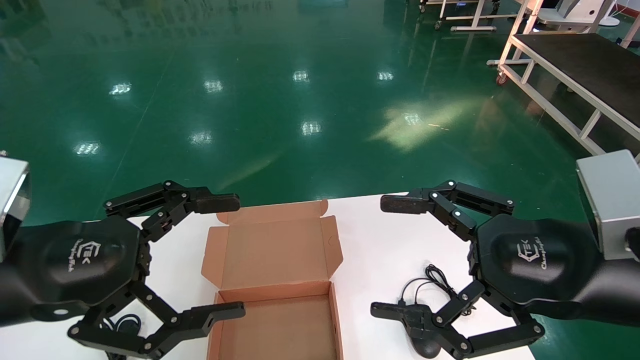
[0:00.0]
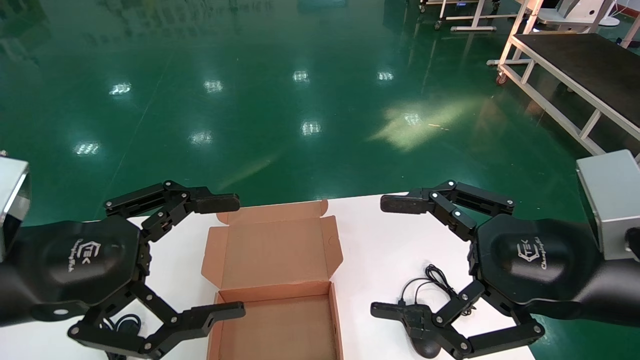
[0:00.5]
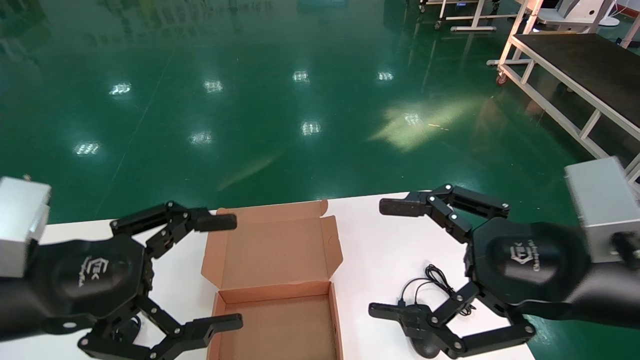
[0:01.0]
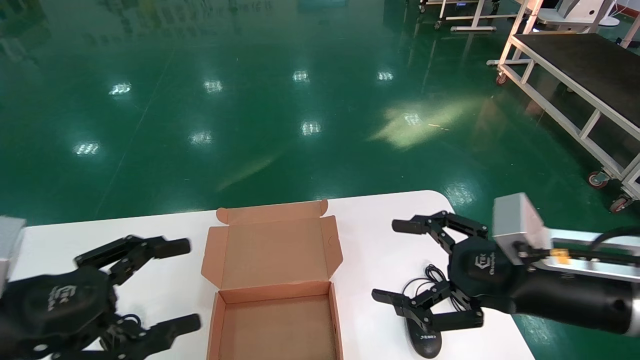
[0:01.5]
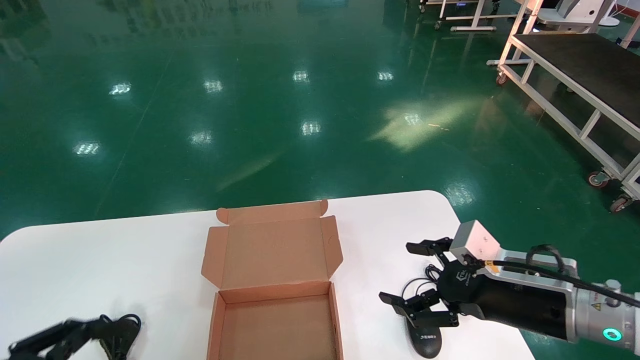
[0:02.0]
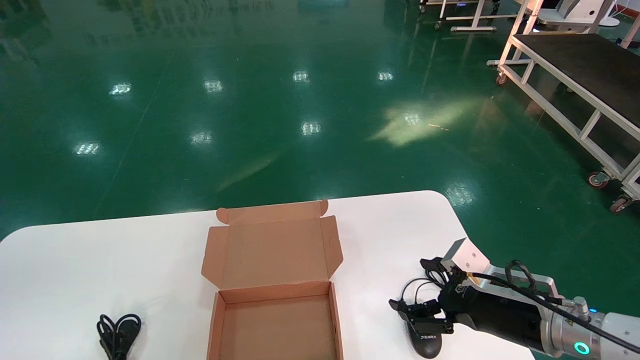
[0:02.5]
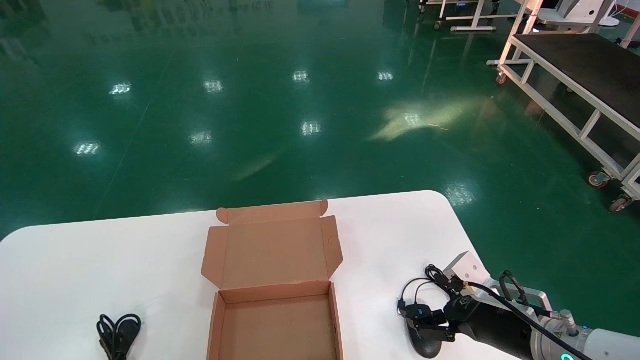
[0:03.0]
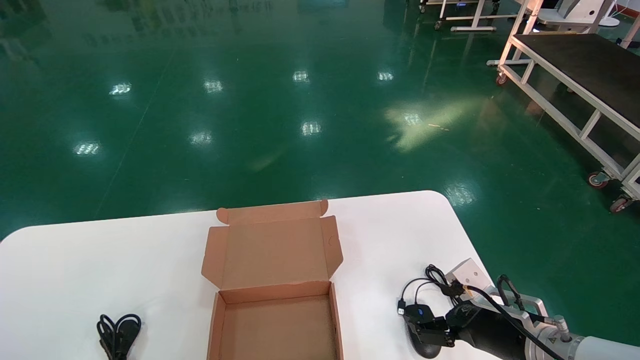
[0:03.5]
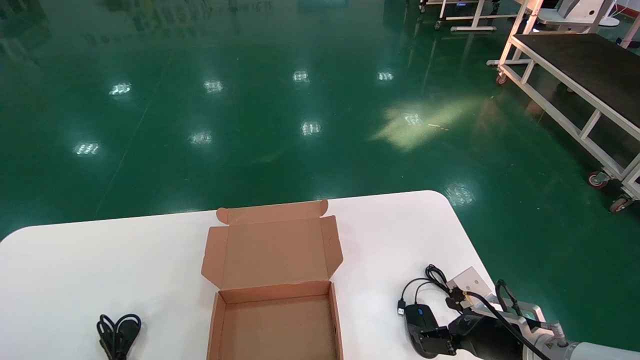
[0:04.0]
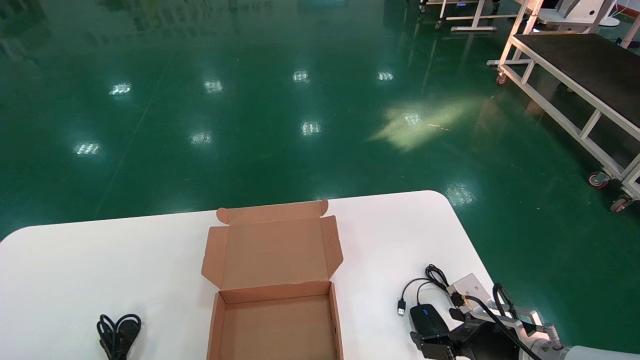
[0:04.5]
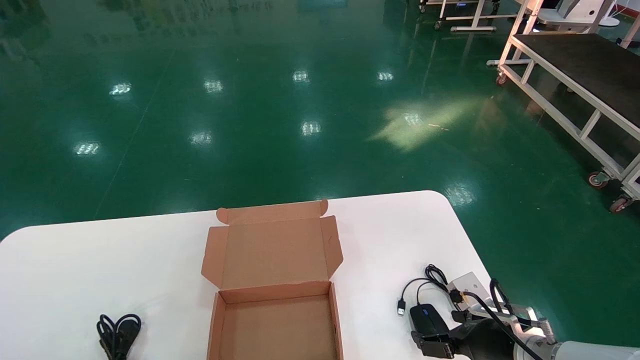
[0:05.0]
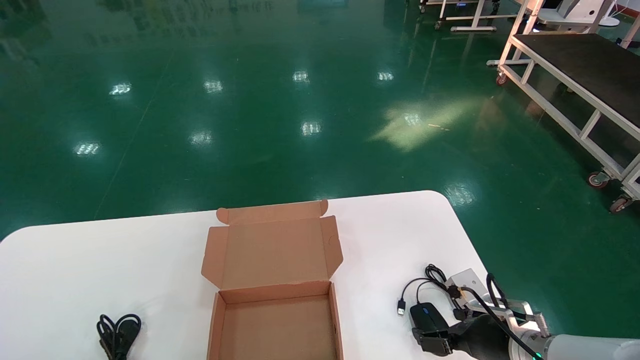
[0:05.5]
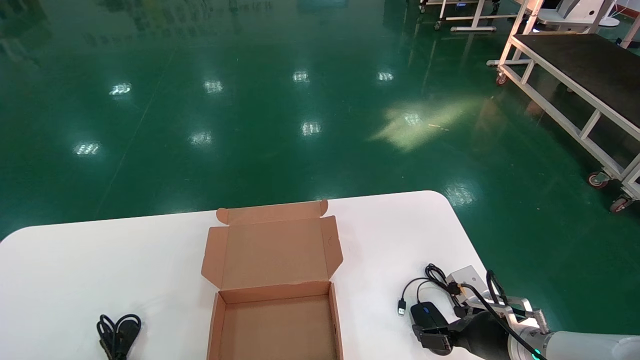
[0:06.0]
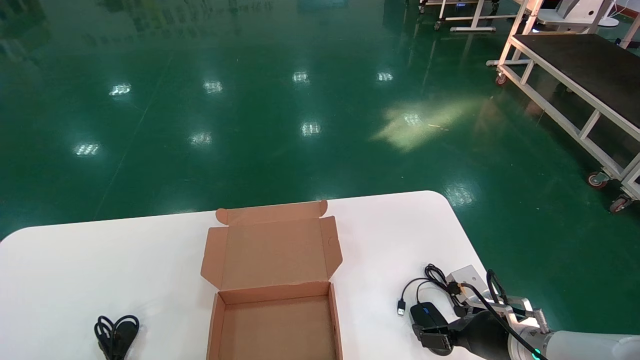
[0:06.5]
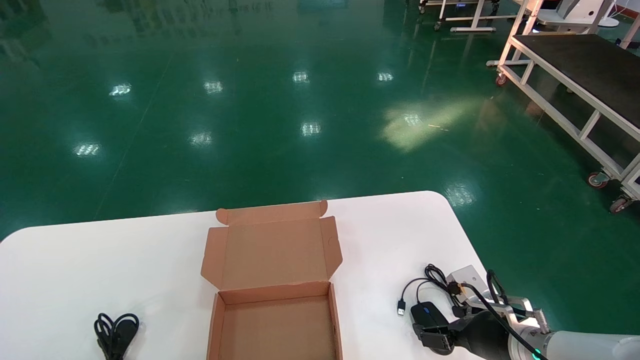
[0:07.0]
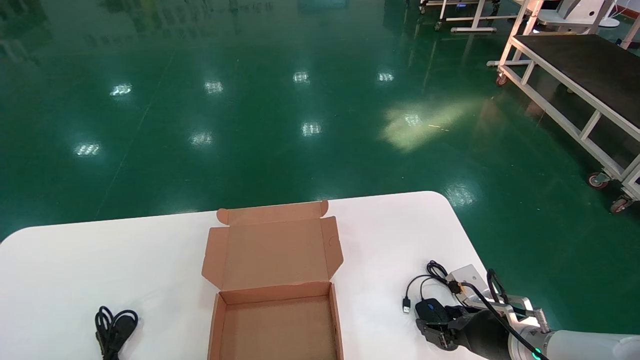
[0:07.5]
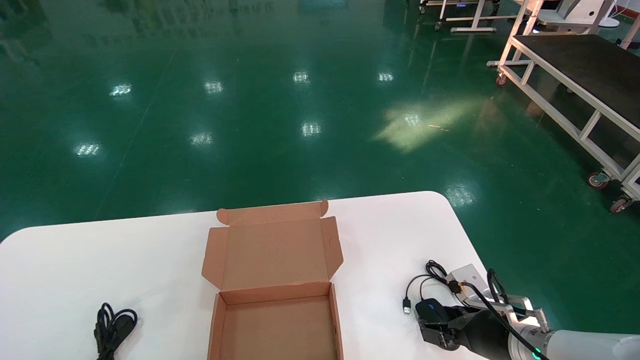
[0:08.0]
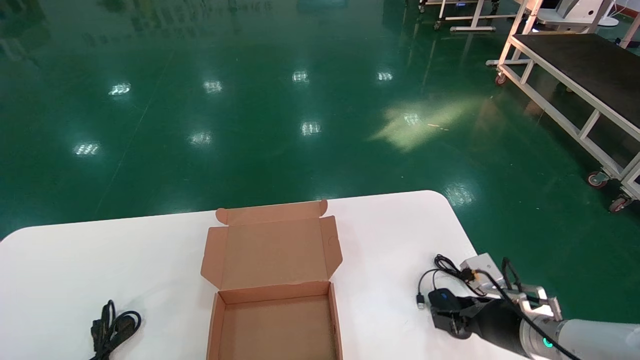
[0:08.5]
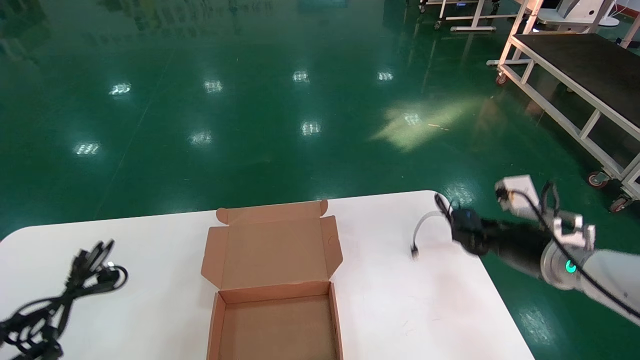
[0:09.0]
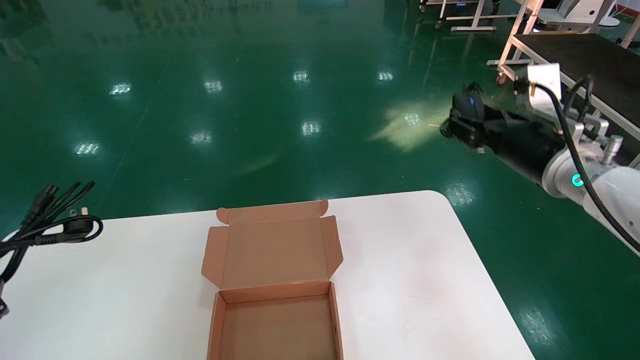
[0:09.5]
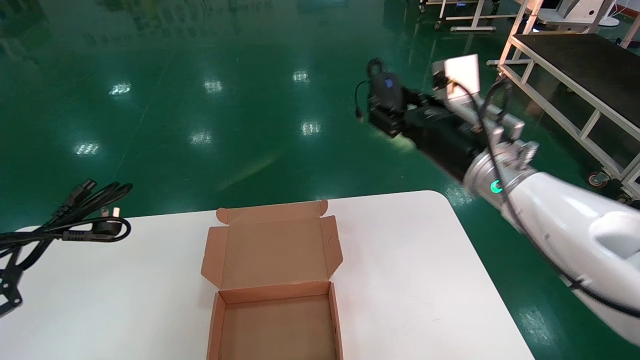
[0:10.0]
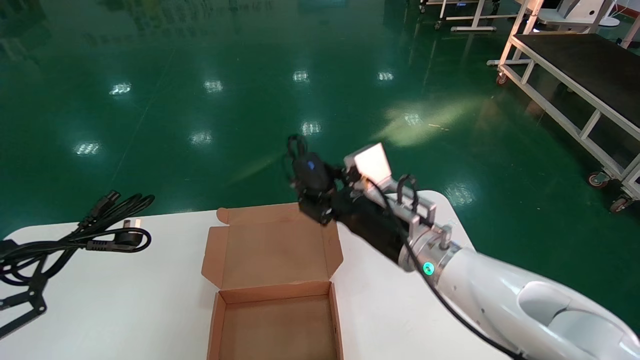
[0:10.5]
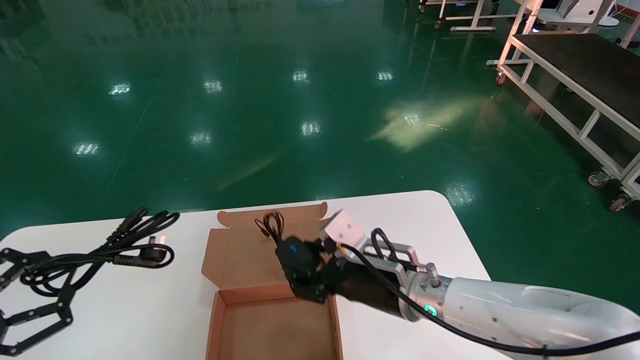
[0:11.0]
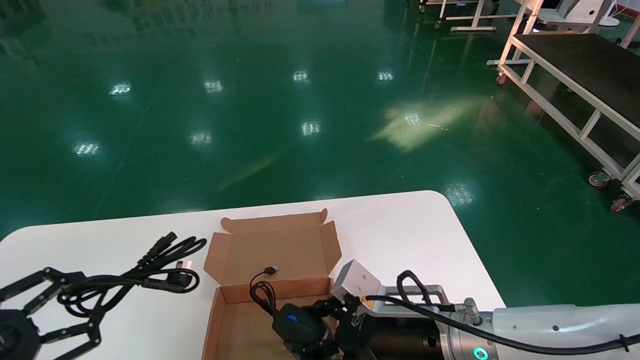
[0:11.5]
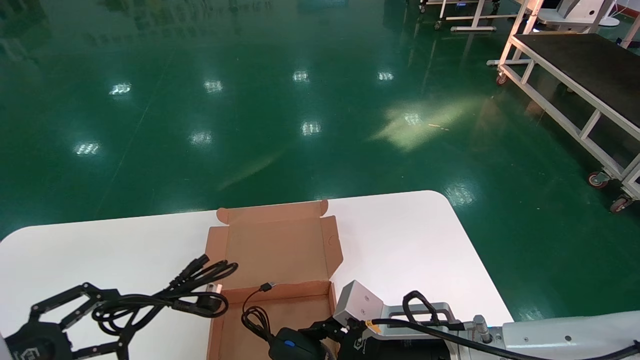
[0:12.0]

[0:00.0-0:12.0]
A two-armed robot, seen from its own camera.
Step, 0:00.0 to 0:08.0: Grasp the mouse and data cable.
0:00.0 to 0:02.0: The right gripper travels downward and forward by approximately 15 cm; the left gripper heads downward and to the left, covering roughly 20 cm.
0:02.0 to 0:04.0: The right gripper travels downward by some 10 cm; the left gripper moves downward, roughly 20 cm.
0:04.0 to 0:06.0: The grippers make only small movements.
0:06.0 to 0:08.0: The right gripper closes its fingers; the left gripper closes up.
0:08.0 to 0:10.0: The left gripper travels upward by some 25 cm; the right gripper is displaced upward and to the left by about 25 cm.
0:10.0 to 0:12.0: The left gripper shifts about 5 cm to the right. Meanwhile the right gripper travels downward and backward by roughly 20 cm.

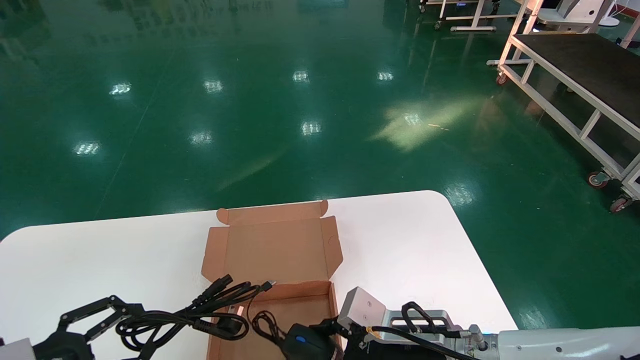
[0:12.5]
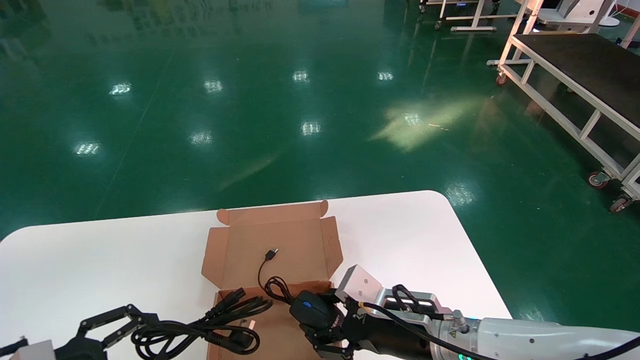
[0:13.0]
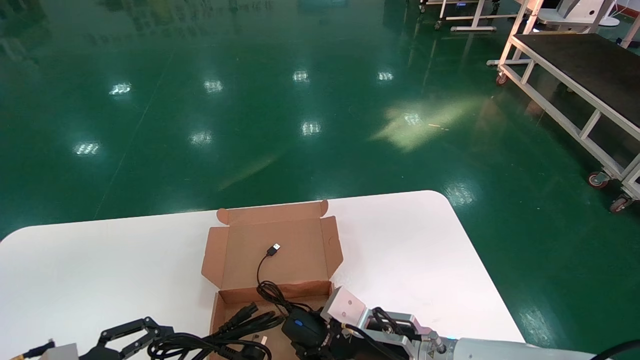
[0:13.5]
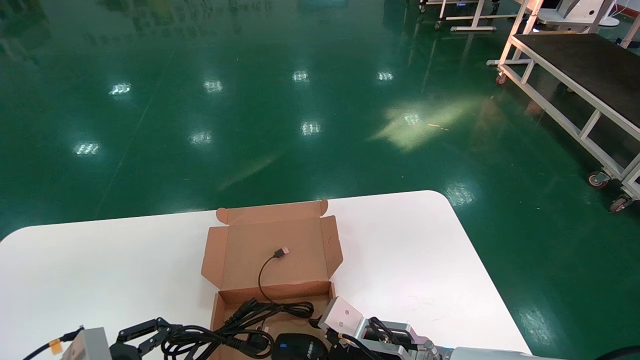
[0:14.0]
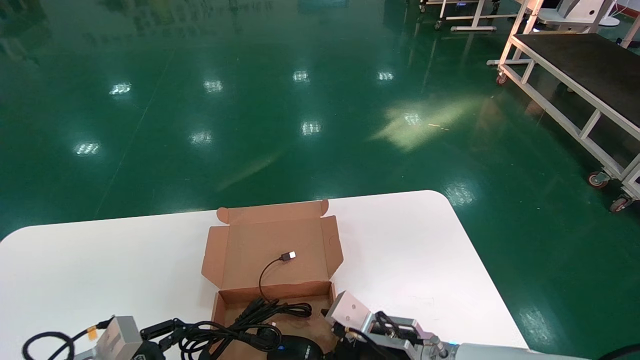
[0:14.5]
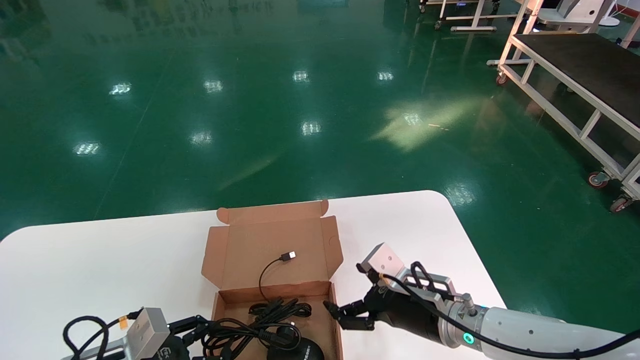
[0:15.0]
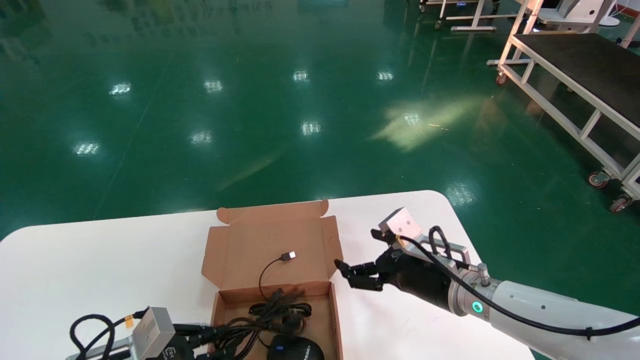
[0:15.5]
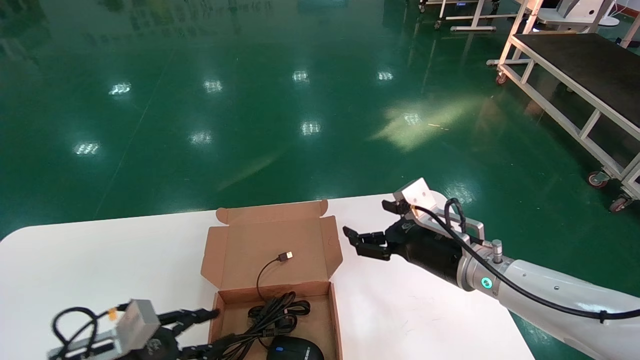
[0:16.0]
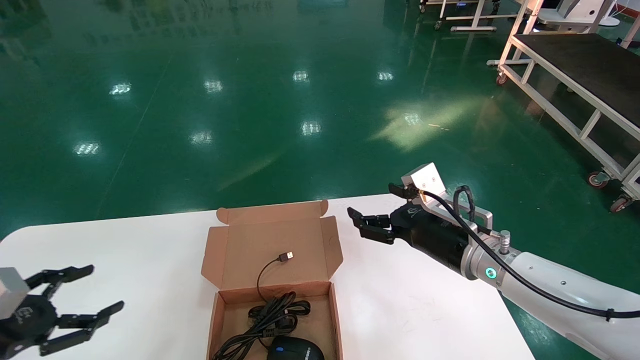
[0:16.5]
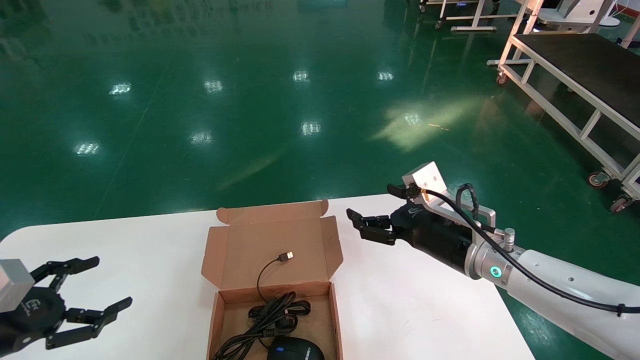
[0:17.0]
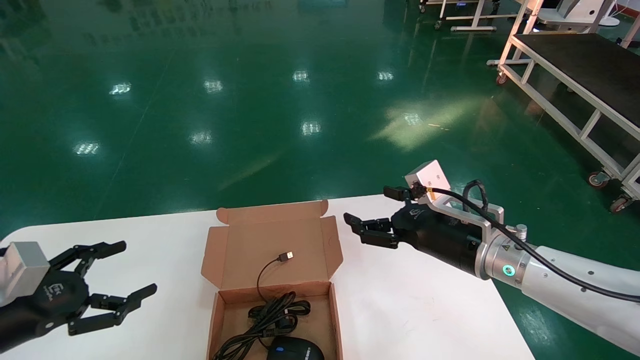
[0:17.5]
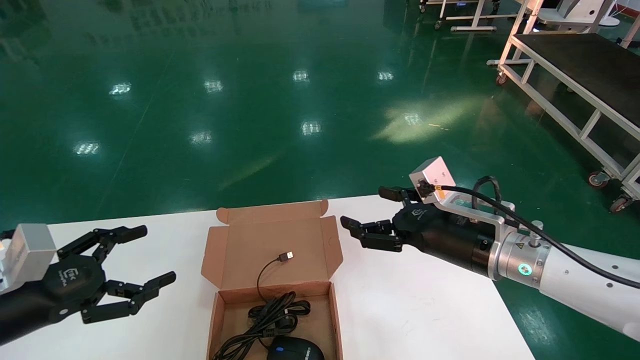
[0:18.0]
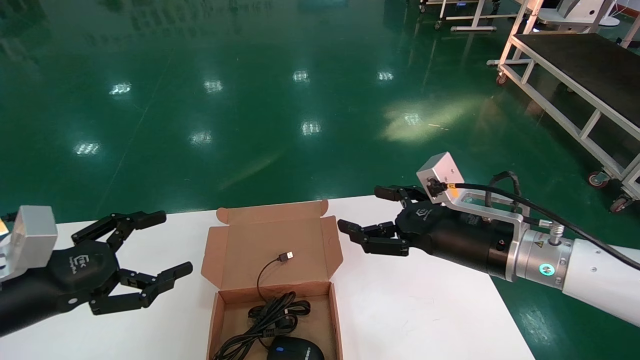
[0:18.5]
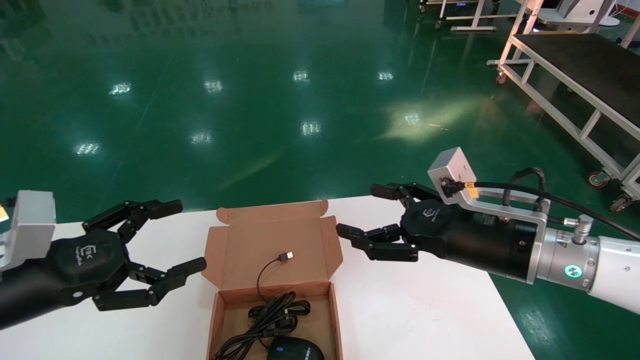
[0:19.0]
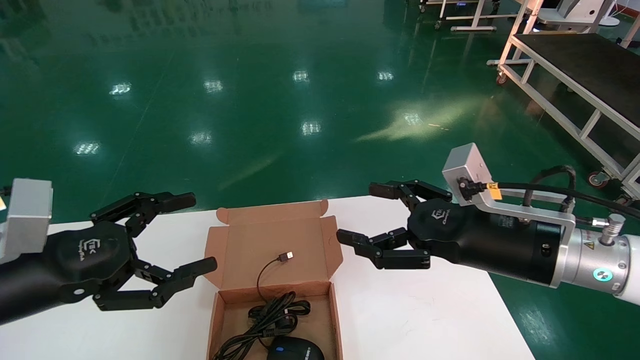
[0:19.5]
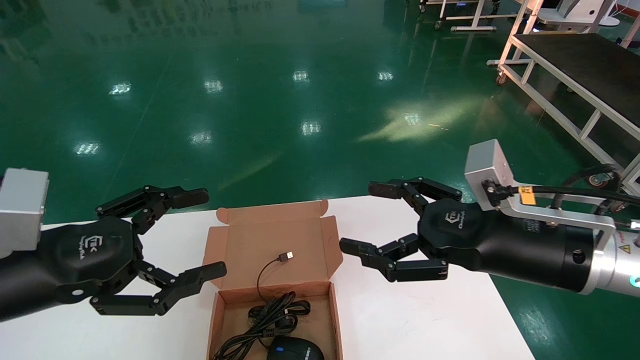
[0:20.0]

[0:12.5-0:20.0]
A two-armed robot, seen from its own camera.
Step, 0:12.5 to 0:15.5: Place the mouse and data cable in the paper box.
0:12.5 to 0:14.5: The left gripper travels downward and forward by roughly 10 cm. Meanwhile the right gripper changes place by some 5 cm, and opens its fingers.
0:14.5 to 0:16.5: The left gripper is displaced to the left and upward by roughly 15 cm, and opens, while the right gripper heads upward, to the right and forward, covering roughly 15 cm, and opens its fingers.
0:16.5 to 0:18.0: The left gripper goes roughly 10 cm upward and to the right.
0:18.0 to 0:20.0: The left gripper moves upward and to the right, approximately 10 cm. The right gripper moves backward and upward, roughly 10 cm.
